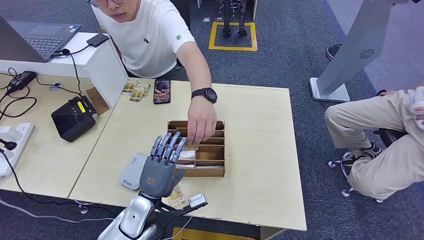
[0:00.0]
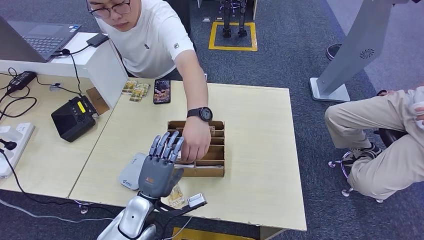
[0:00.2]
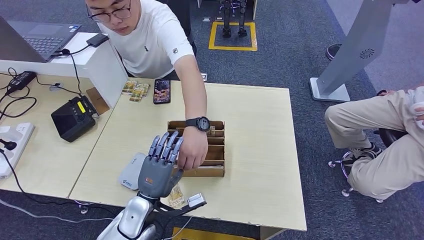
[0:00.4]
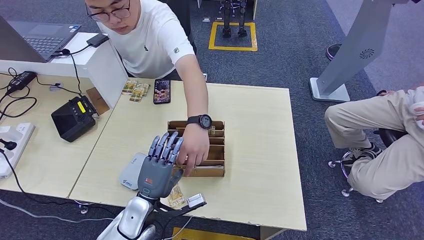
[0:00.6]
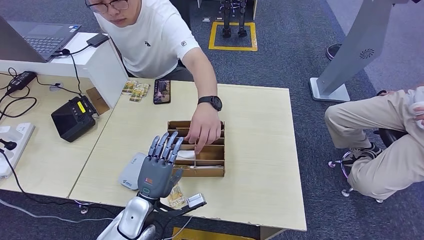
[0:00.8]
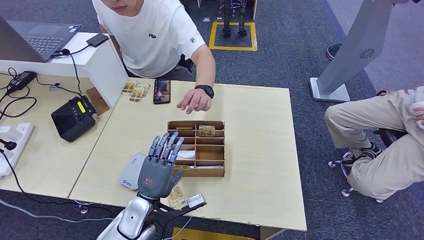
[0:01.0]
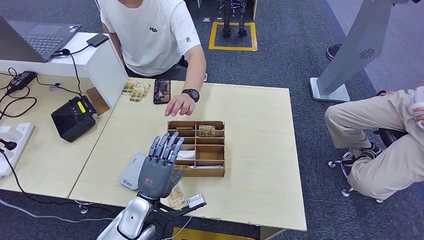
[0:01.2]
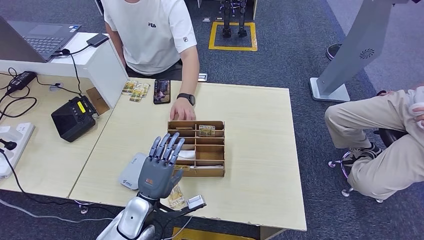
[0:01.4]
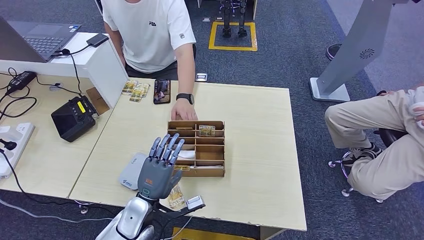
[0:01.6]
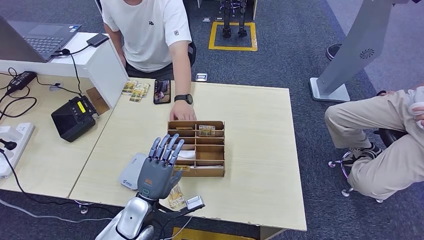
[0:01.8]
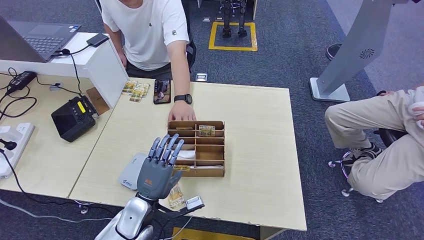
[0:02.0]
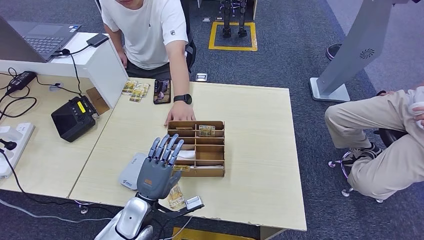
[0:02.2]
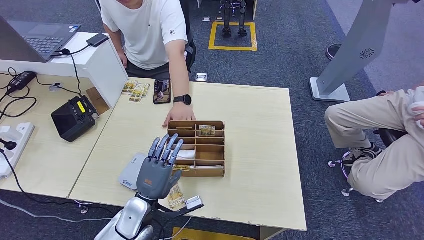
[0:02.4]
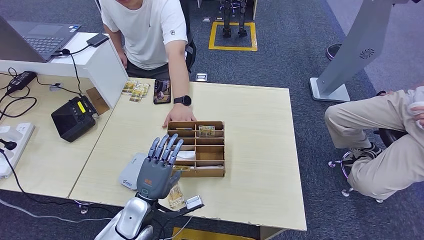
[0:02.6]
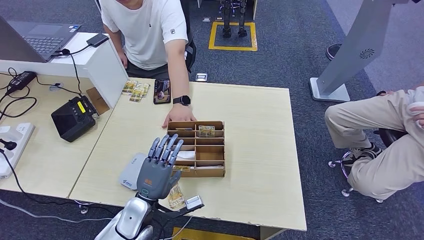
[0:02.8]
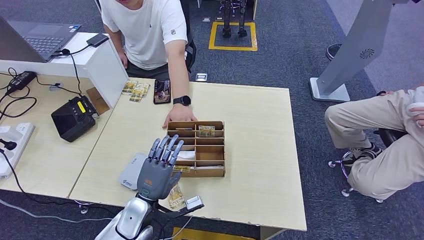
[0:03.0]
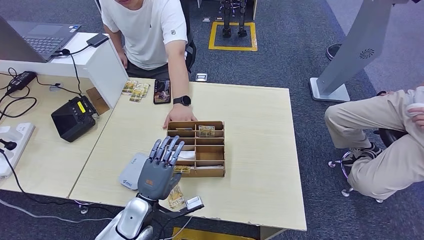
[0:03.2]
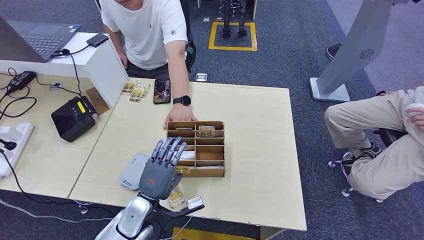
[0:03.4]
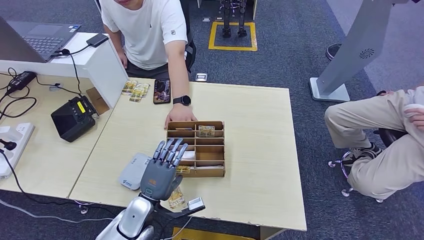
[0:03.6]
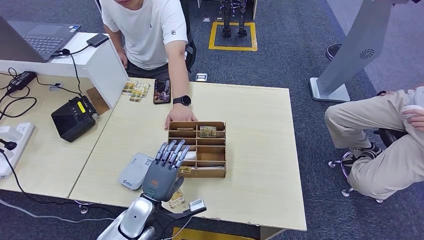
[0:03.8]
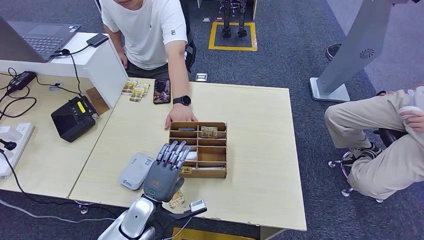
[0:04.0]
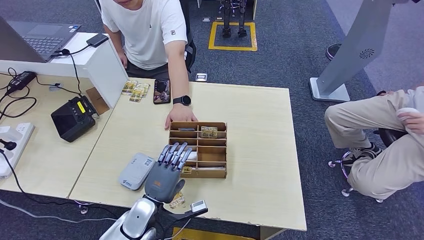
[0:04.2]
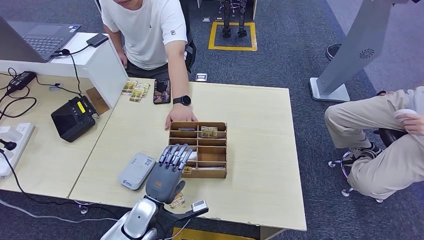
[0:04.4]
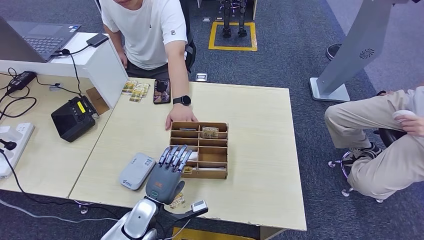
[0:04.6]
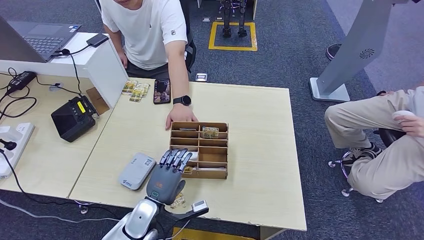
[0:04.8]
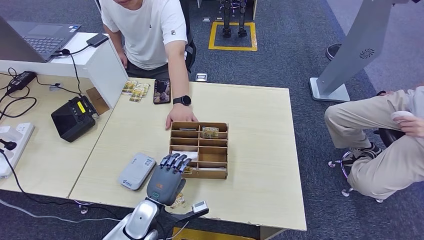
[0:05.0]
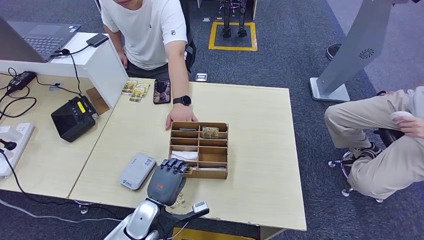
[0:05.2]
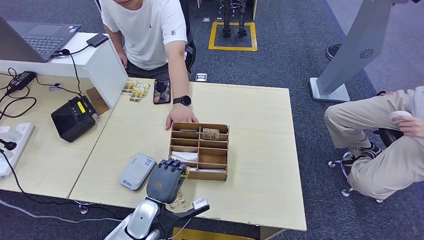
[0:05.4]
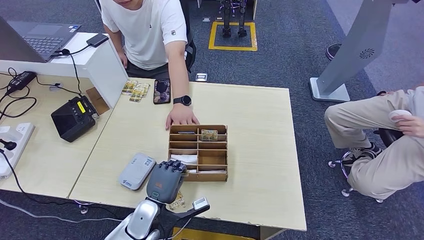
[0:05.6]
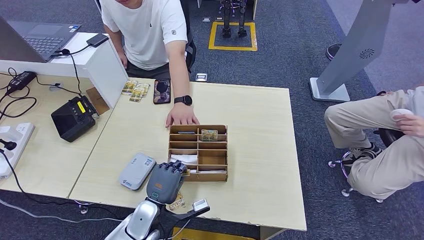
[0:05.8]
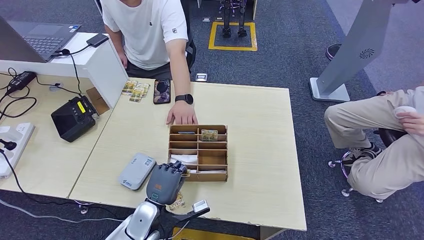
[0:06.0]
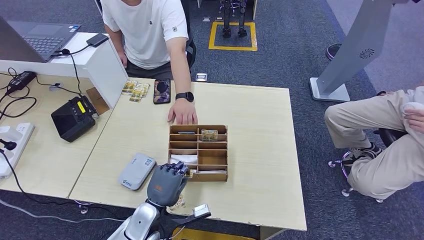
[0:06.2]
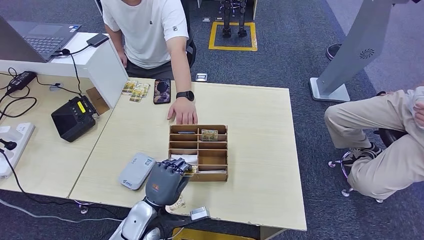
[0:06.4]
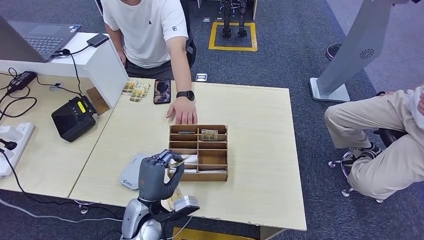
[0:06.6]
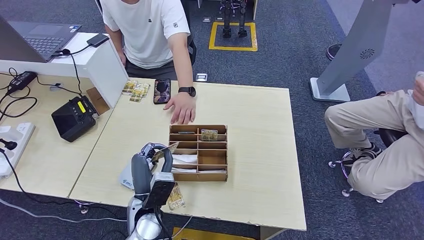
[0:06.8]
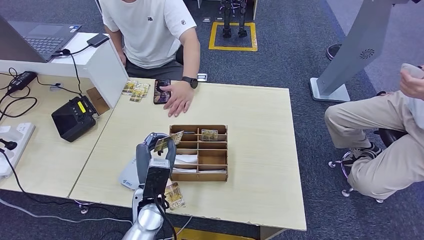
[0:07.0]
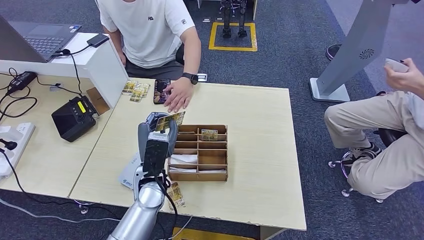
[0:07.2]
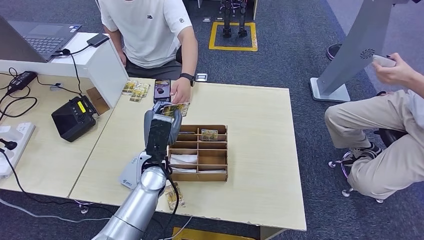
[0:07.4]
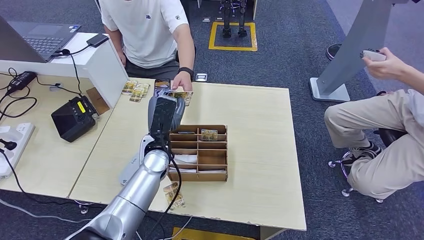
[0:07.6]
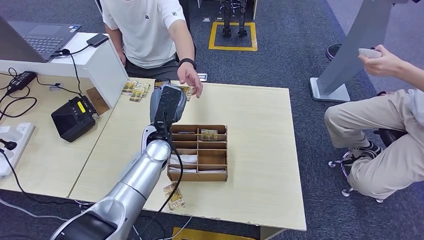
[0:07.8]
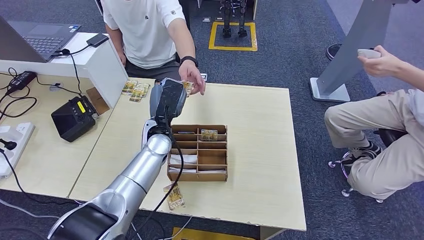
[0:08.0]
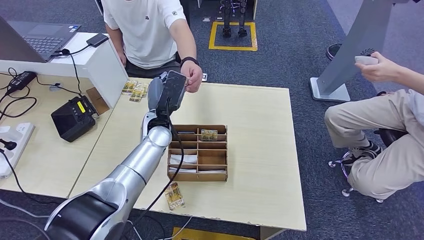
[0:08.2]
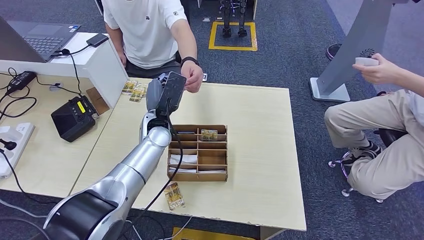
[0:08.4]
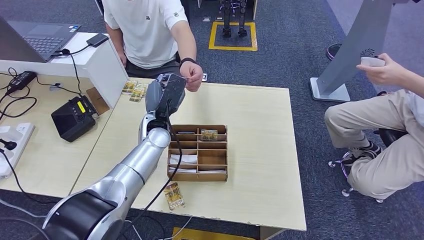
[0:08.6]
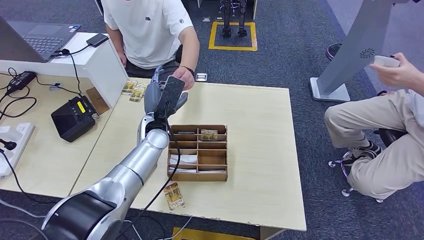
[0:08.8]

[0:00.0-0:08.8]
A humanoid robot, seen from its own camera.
Step, 0:00.0 to 0:06.4: Pick up the room key from the key card box.
Step, 0:06.6 to 0:08.8: Hand the room key to the person.
0:00.0 to 0:03.0: Both hands stay about where they are.
0:03.0 to 0:04.4: There are only small adjustments of the hands.
0:04.4 to 0:05.8: Both hands stay about where they are.
0:05.8 to 0:07.4: The left hand heads upward and forward, covering some 15 cm.
0:07.4 to 0:08.8: The left hand heads forward, covering some 10 cm.
